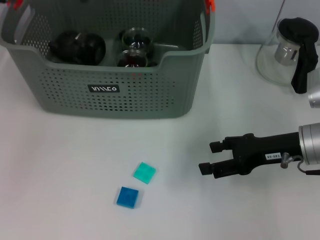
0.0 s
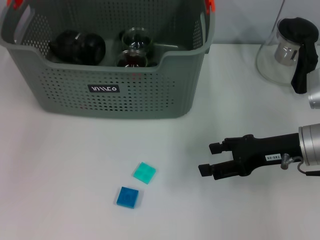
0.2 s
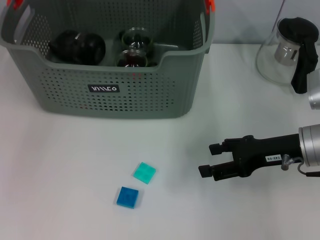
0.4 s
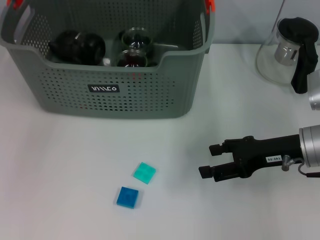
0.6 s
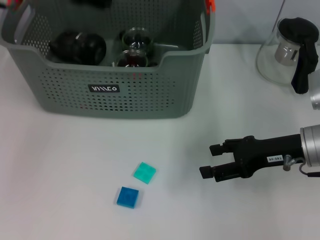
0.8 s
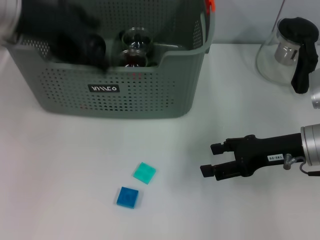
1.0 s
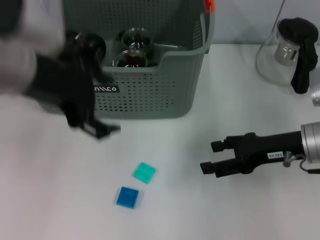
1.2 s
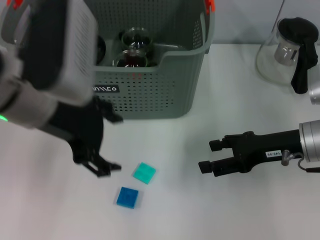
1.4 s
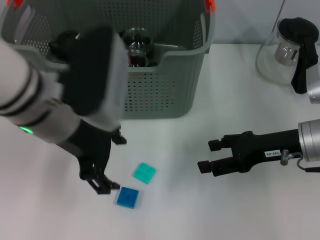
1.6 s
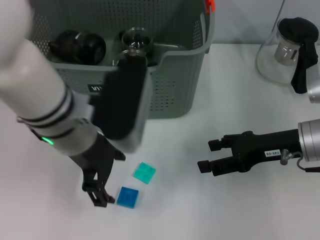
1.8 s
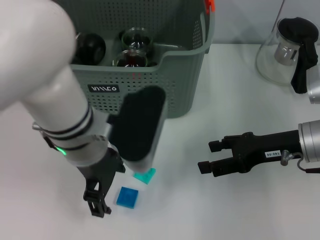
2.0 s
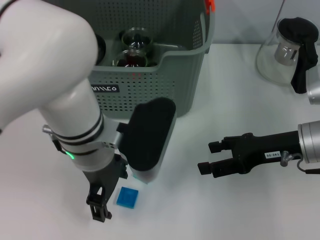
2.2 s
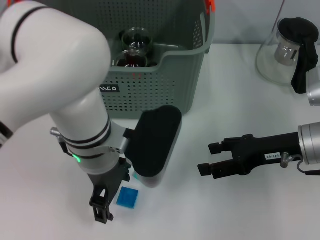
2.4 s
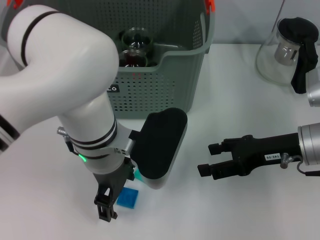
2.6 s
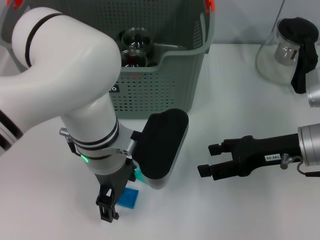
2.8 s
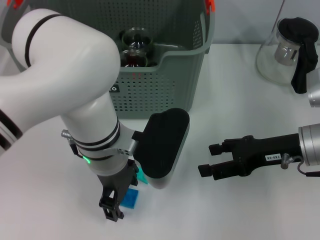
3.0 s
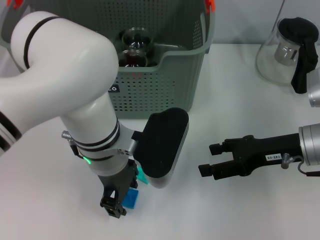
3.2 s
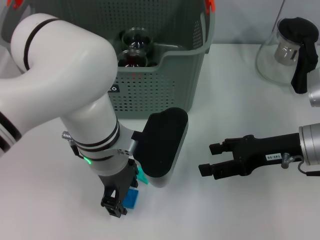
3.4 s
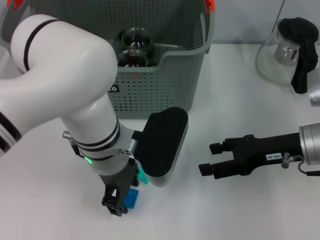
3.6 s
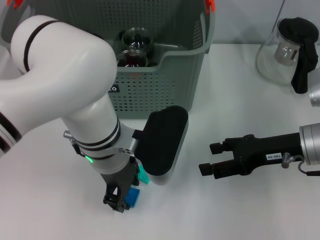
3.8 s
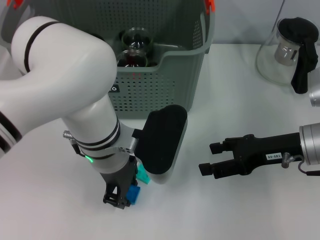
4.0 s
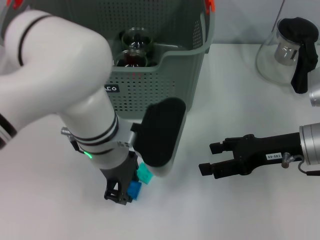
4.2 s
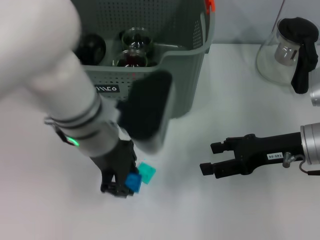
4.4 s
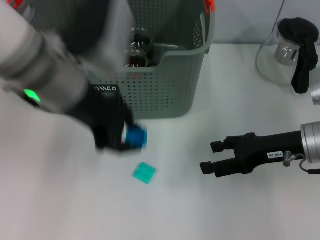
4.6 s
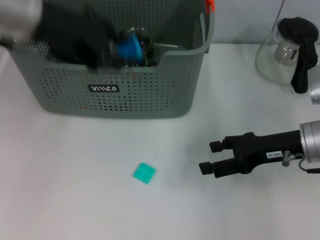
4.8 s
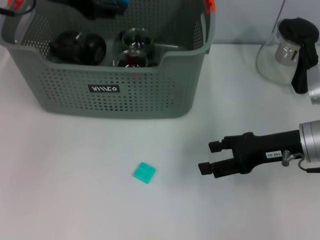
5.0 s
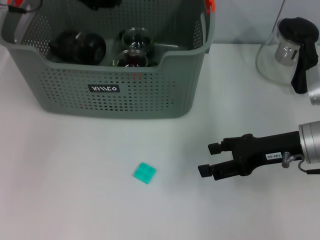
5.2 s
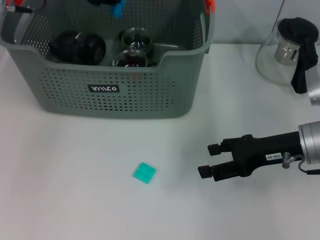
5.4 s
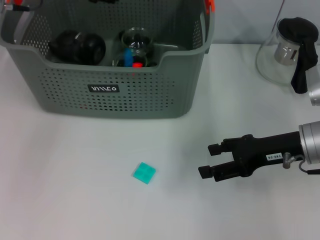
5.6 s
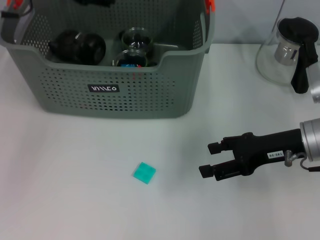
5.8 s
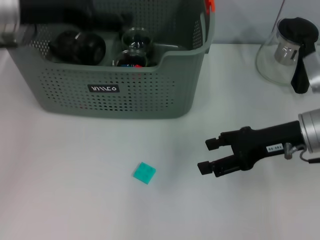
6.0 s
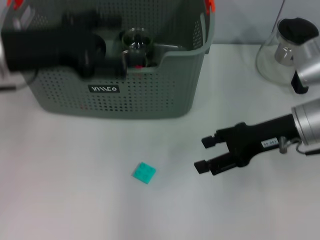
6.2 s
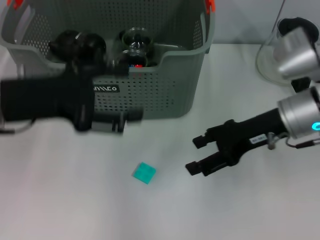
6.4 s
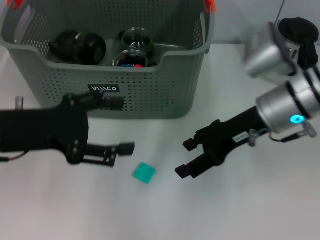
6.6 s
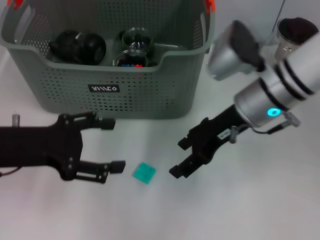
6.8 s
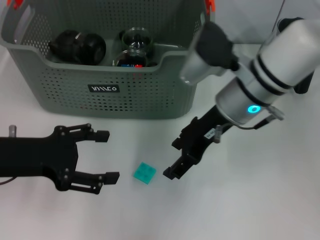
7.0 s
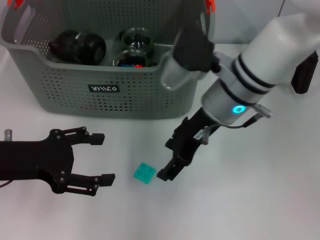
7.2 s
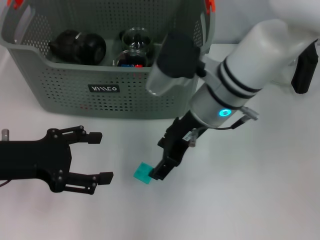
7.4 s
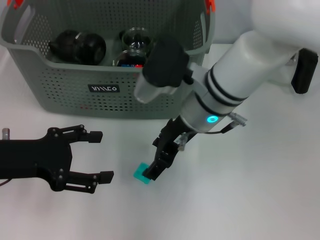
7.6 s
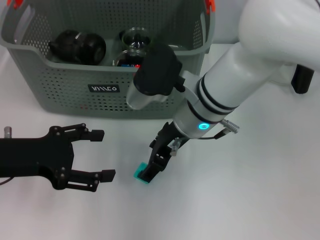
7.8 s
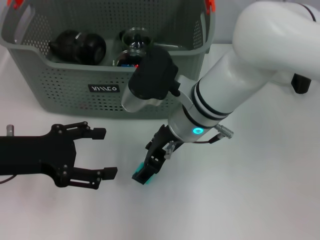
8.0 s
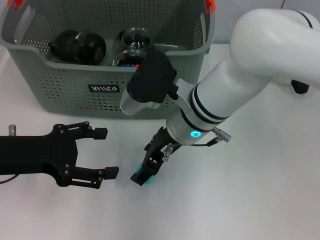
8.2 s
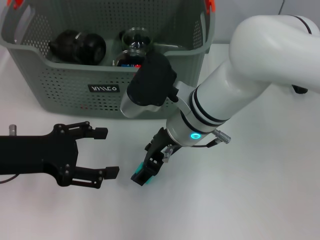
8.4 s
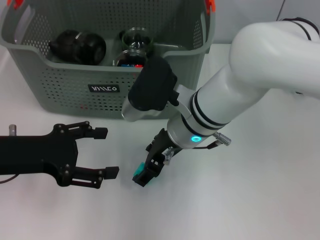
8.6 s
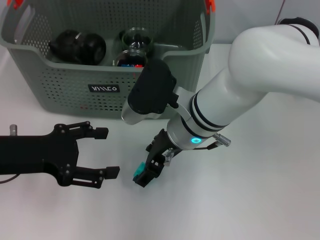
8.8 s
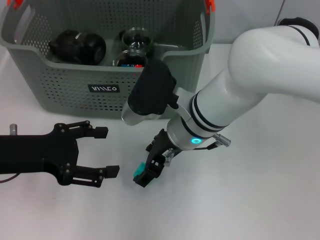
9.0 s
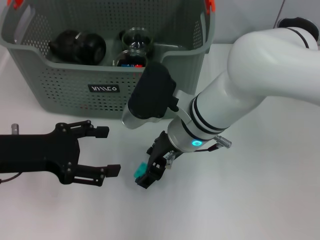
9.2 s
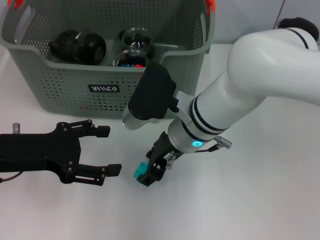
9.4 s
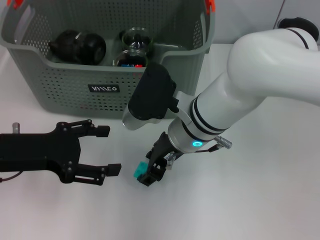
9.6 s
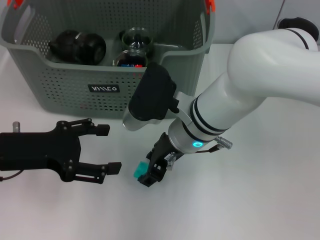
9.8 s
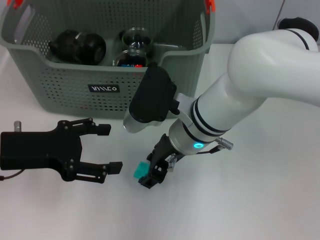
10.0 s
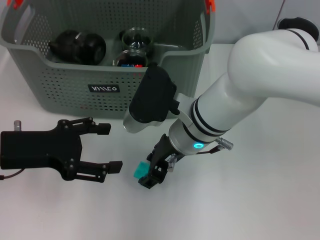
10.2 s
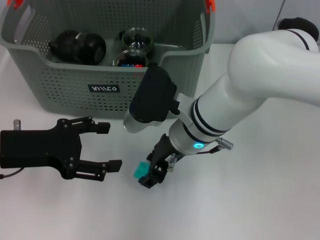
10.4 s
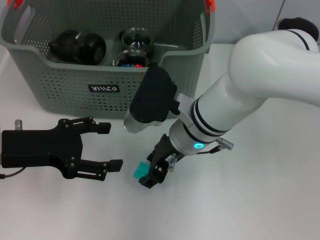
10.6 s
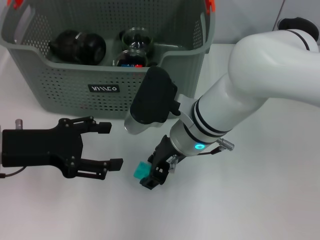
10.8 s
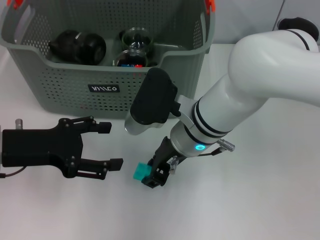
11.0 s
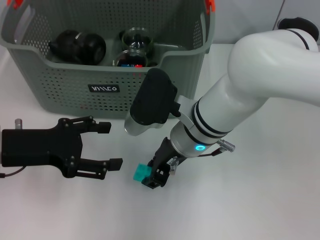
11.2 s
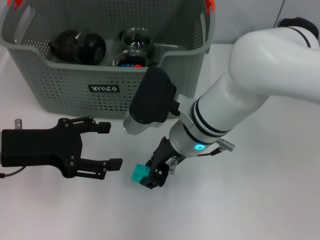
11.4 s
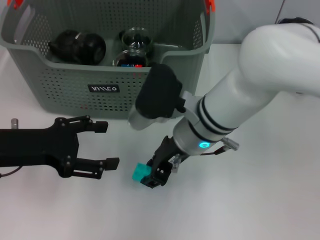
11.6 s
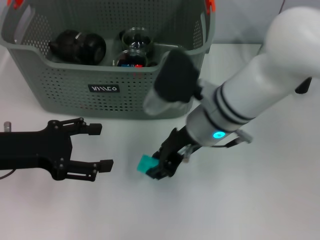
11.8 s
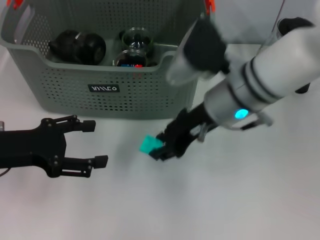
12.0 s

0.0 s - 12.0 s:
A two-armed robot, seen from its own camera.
Task of the whole recording: pick up the teacup on the table and place it into the storage bin, pick up the block on the table and place it into the storage bin.
Step, 0.8 s - 4.0 s: Grasp the dark blue block with left gripper.
Step, 4.2 s - 5.6 s: Place the dark blue block in the storage box with left gripper.
Step, 5.8 s - 11.0 s: Grasp the light blue block with right gripper.
0.0 s - 1.6 s: The left gripper goes approximately 15 cm backward, downward and to the right, and opens its fingers.
1.6 s - 3.0 s: The left gripper travels downward and to the right by about 10 cm.
3.0 s - 4.4 s: The left gripper closes.
4.4 s - 6.0 s: The left gripper shifts some 15 cm to the left, upward and forward, and opens.
6.0 s - 7.6 s: The left gripper shifts approximately 15 cm backward and downward. The right gripper travels to the left by approximately 20 cm.
7.6 s - 9.0 s: The grippers stay close to where they were, moving slightly.
9.0 s - 10.4 s: Both grippers stay about where they are.
10.4 s - 12.0 s: The right gripper shifts approximately 10 cm upward and to the right.

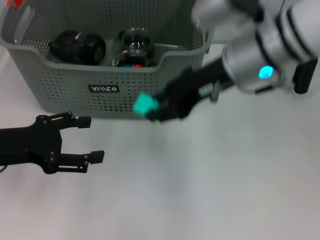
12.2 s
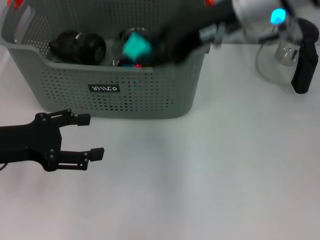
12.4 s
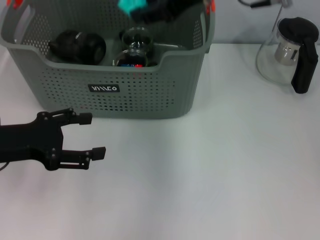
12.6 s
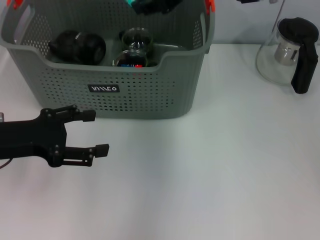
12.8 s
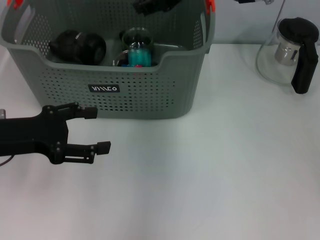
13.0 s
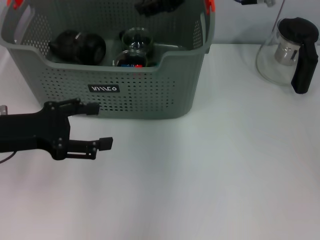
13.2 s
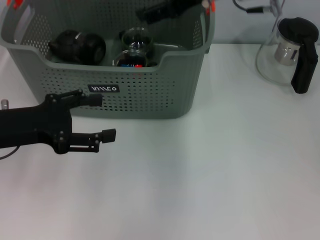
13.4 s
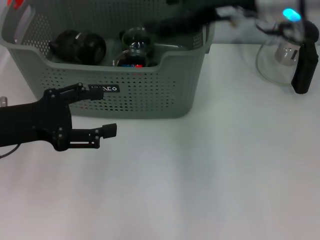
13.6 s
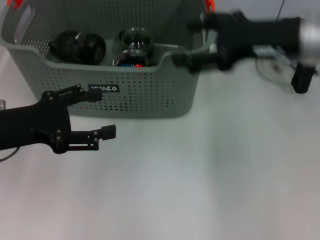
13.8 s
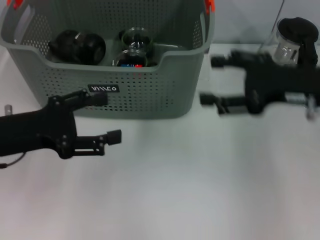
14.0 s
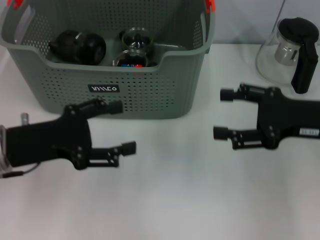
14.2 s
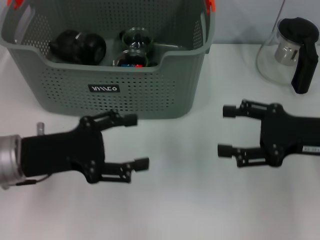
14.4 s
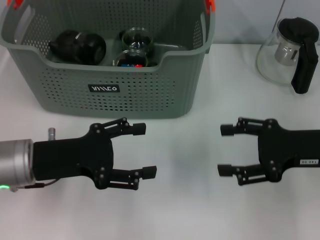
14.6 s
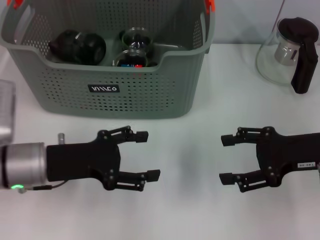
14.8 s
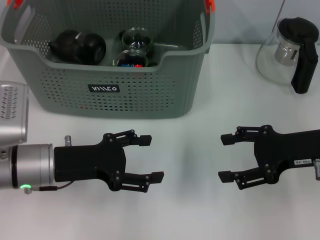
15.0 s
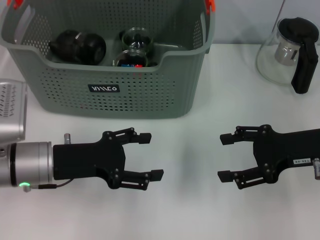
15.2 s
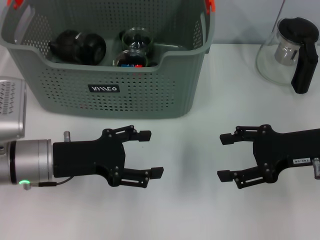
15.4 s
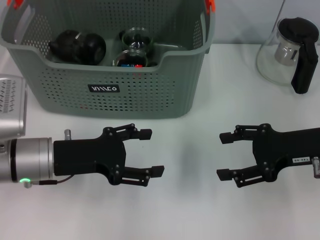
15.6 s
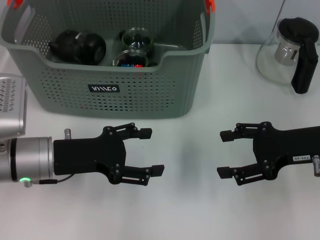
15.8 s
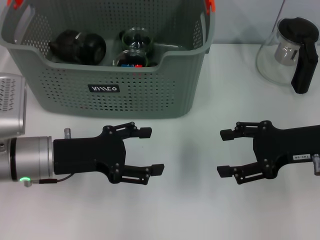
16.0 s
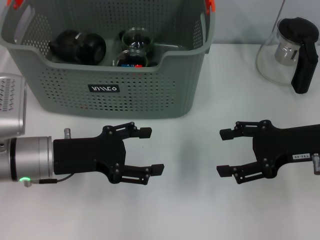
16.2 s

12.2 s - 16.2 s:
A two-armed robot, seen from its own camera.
Task of the whole recording: pick up the teacup on the table and place it into the storage bin, pick up the block on the table and place it into the storage bin.
12.2 s - 13.6 s: The right gripper shifts by some 5 cm, and opens its fingers.
13.6 s - 14.8 s: The left gripper moves downward and to the right, about 10 cm. The right gripper heads downward, to the right and backward, covering about 20 cm.
14.8 s - 16.2 s: Both grippers stay about where they are.
